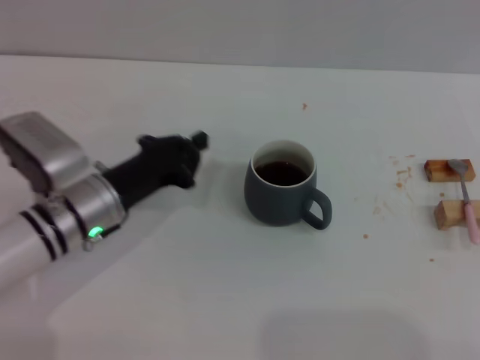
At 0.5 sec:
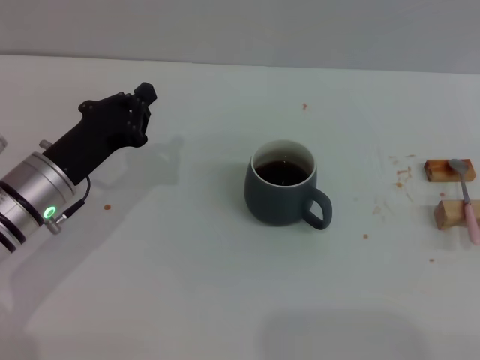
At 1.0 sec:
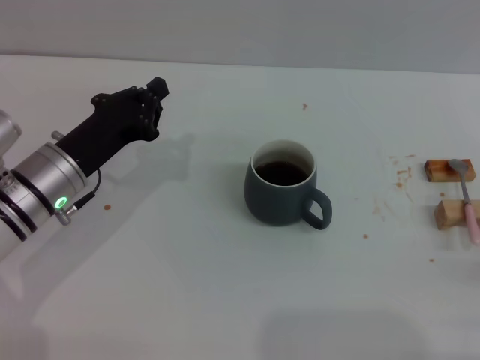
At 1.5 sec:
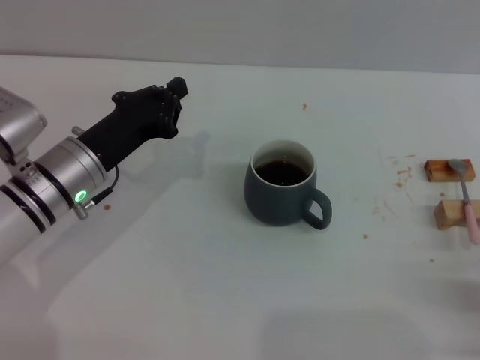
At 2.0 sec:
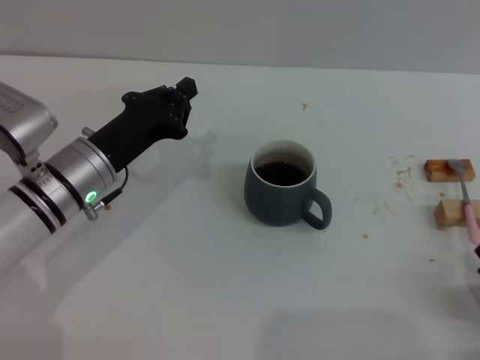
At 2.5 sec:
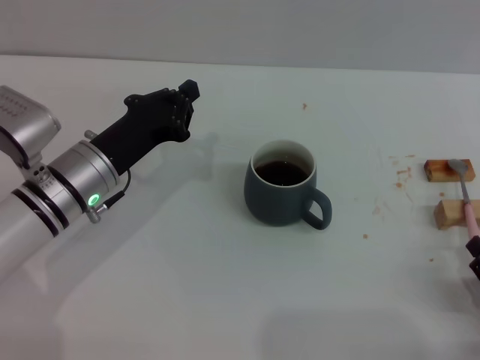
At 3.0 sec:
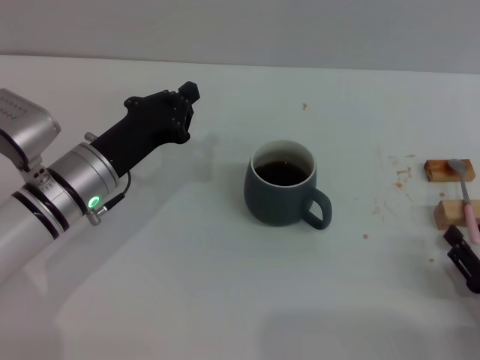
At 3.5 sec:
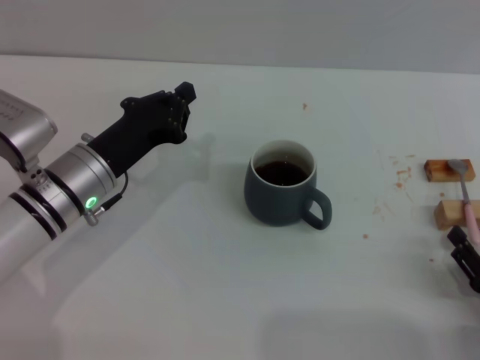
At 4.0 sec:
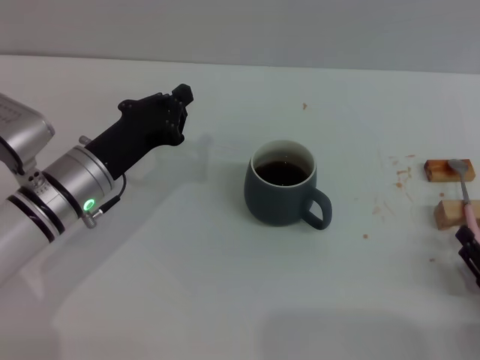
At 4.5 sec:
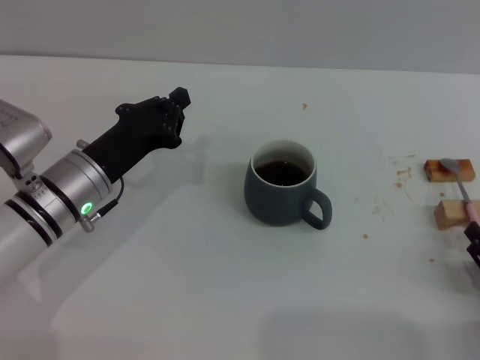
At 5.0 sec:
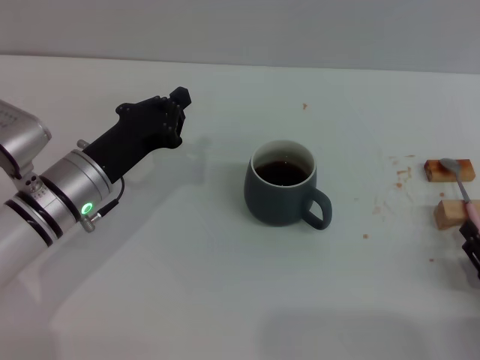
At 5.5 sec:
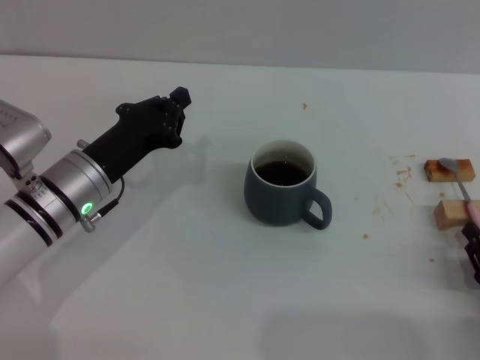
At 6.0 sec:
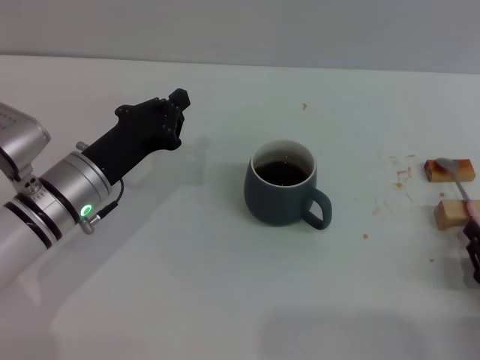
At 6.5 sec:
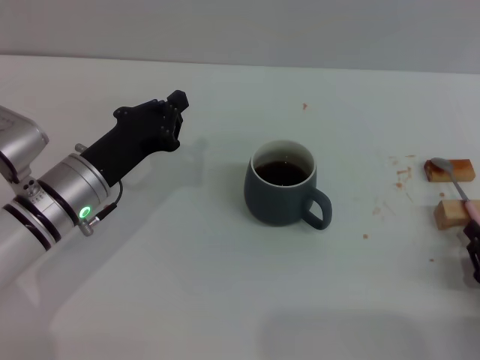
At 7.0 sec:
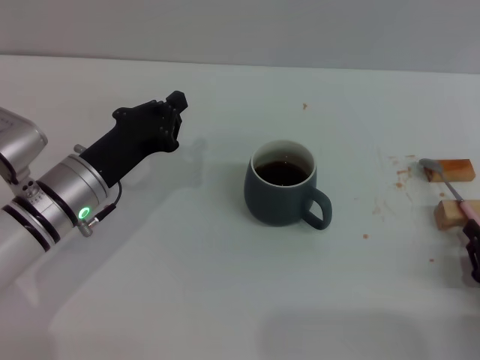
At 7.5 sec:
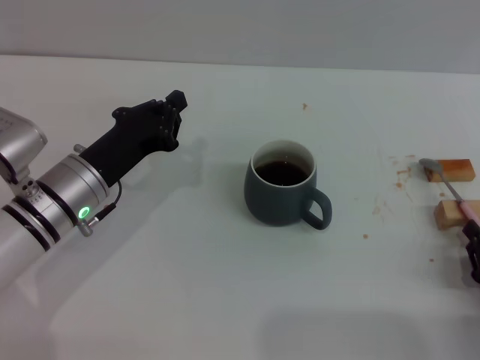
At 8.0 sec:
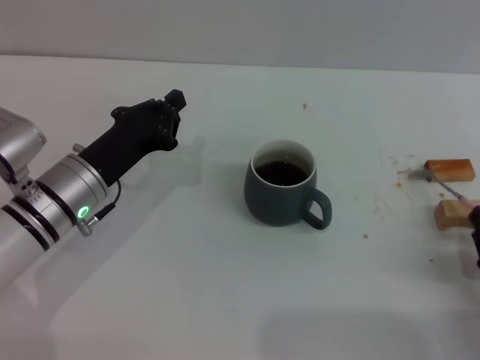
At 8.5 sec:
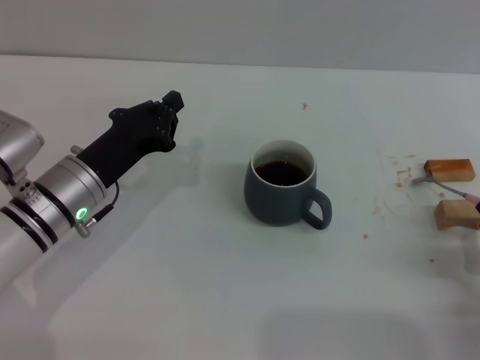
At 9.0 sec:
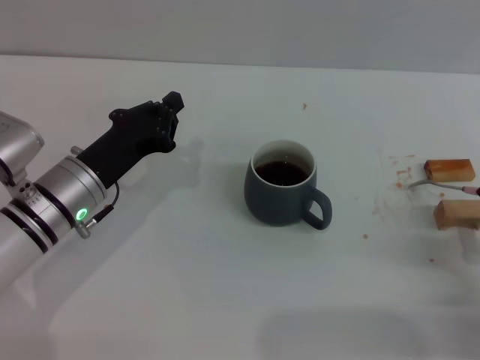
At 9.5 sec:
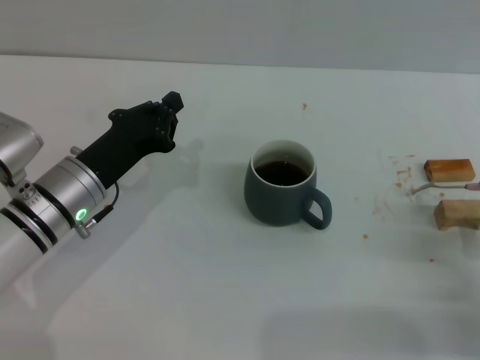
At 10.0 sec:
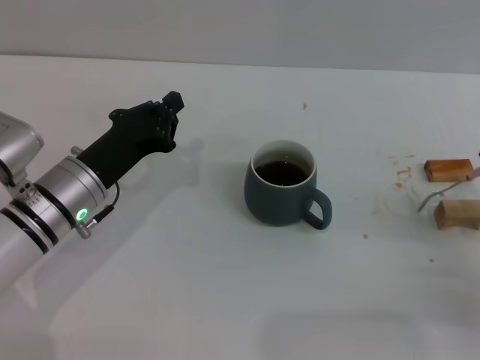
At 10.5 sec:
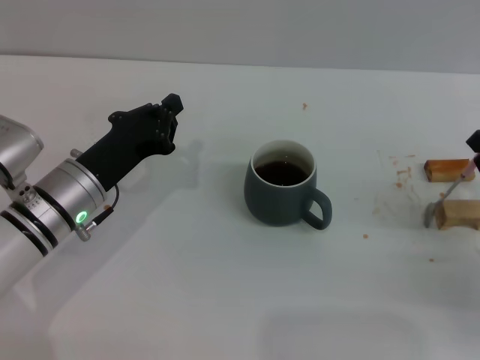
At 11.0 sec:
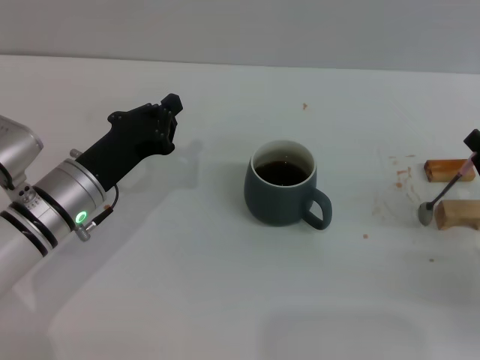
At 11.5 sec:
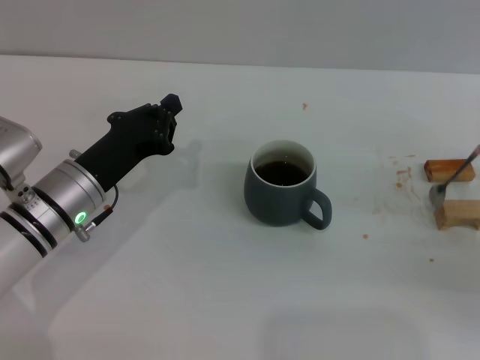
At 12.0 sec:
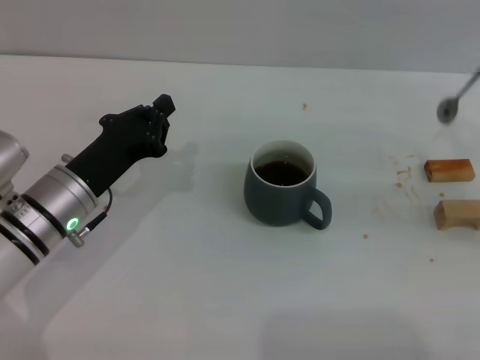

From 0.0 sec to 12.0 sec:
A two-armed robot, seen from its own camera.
Task of the whole recording: Move the grey cup to the center, lift the pink spoon, stir it three times in the cup, and put the spoon into the cup.
From 0.0 sec to 2.0 sec: The right gripper heads to the left and downward, covering about 15 cm.
From 2.0 sec to 4.0 sec: The grippers move only a little.
From 4.0 sec to 6.0 sec: The right gripper closes up.
From 6.0 sec to 8.0 sec: Both grippers stay about where they are.
From 8.0 sec to 10.0 sec: The right gripper ends up some 5 cm from where it was.
From 10.0 sec to 12.0 sec: The right gripper travels upward and forward by about 15 cm.

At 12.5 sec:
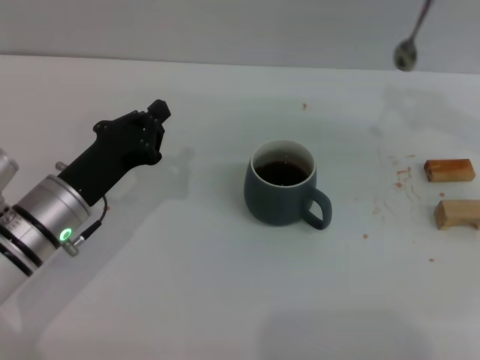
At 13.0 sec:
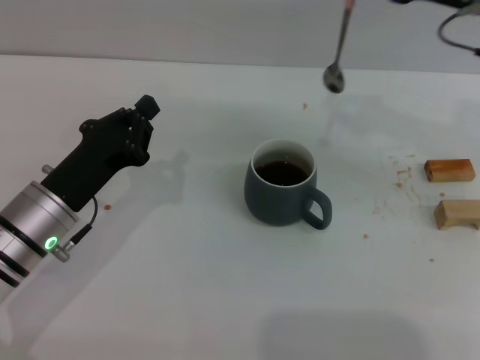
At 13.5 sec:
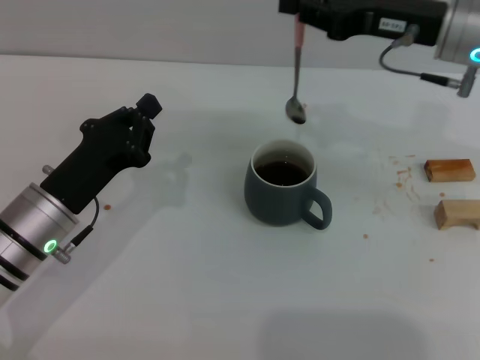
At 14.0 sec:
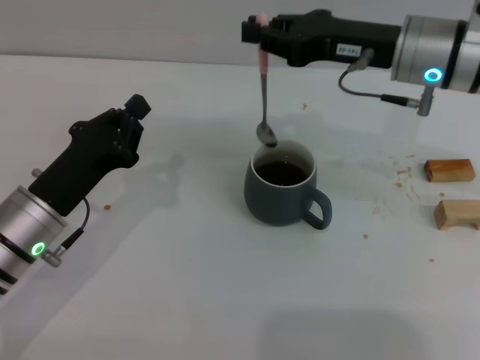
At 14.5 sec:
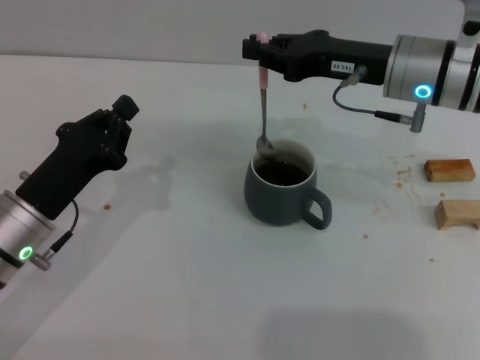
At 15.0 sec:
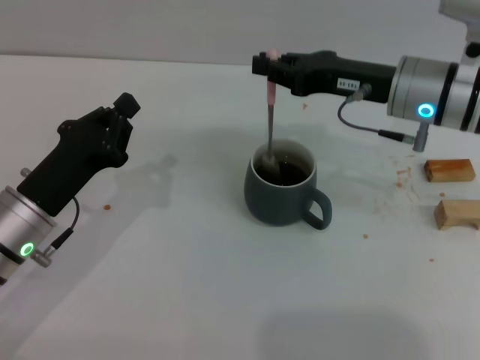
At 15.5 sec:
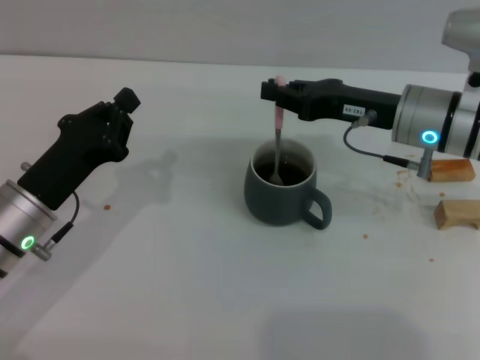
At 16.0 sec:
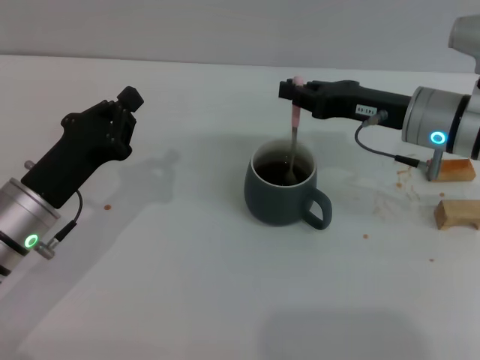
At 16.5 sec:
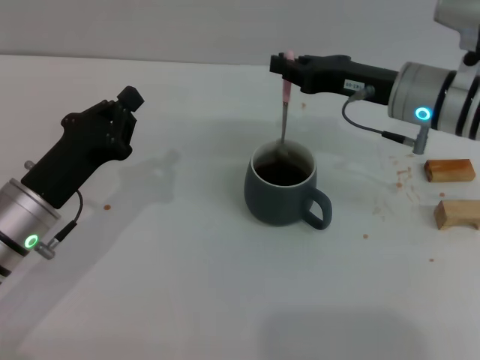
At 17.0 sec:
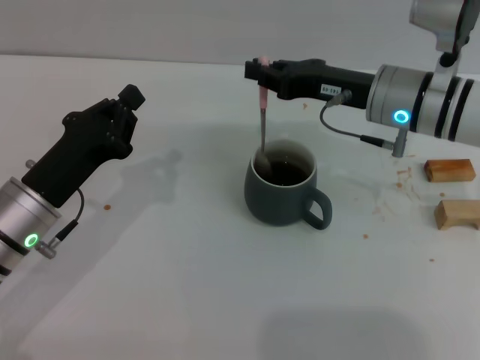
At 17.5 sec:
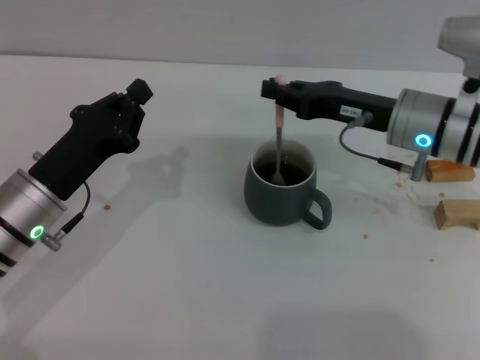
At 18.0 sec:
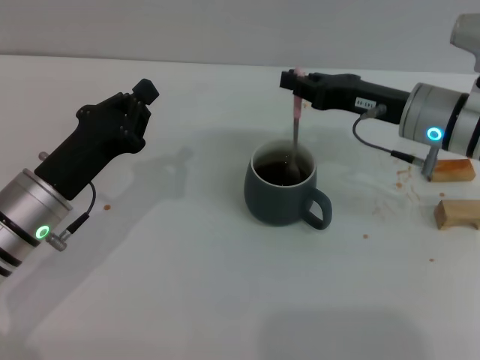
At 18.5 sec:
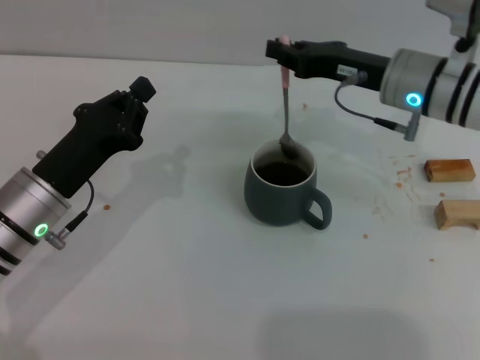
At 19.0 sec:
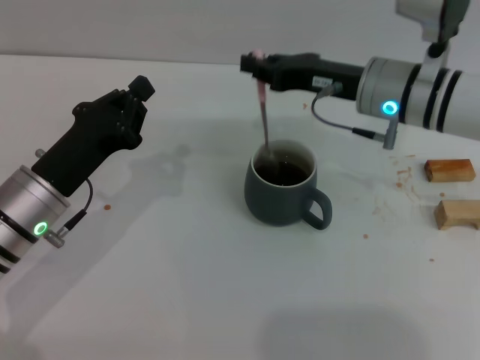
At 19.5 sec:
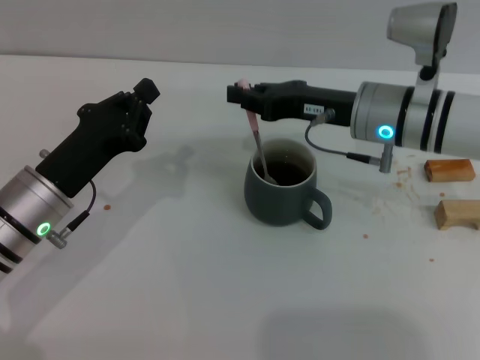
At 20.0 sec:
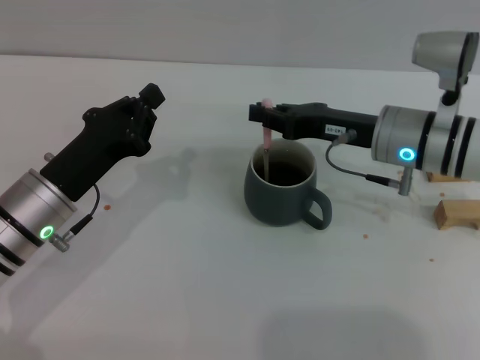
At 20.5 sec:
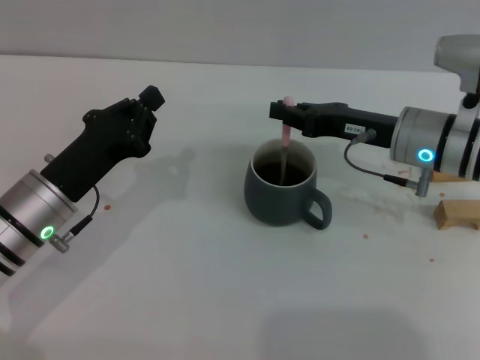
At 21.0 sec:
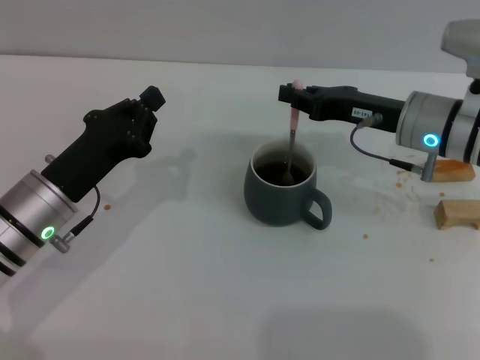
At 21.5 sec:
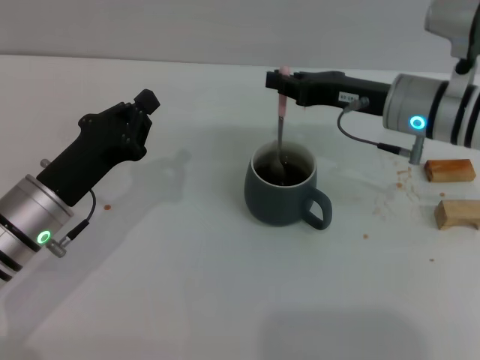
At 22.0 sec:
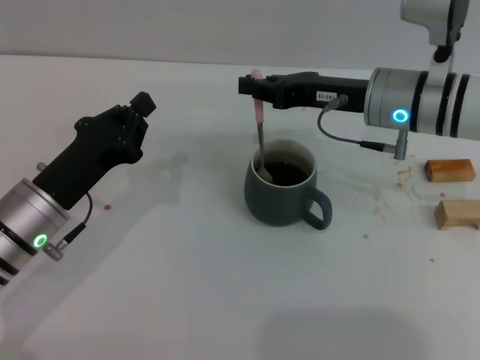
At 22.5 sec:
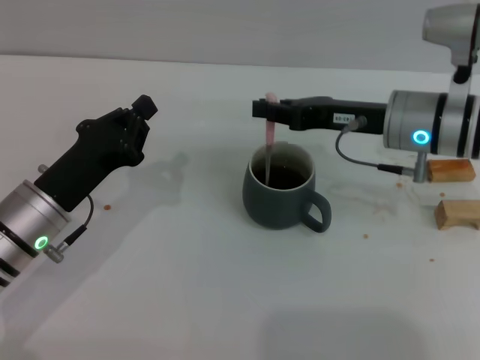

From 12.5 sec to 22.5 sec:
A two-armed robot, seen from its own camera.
Task of the whole recording: Move the grey cup to the center, lift the pink spoon, stir it three times in the cup, and put the spoon into the cup.
From 12.5 sec to 14.5 sec: The right gripper goes roughly 15 cm to the left and downward.
From 14.5 sec to 18.5 sec: The grippers stay close to where they were, moving slightly.
From 18.5 sec to 20.5 sec: The right gripper ends up about 5 cm from where it was.
From 20.5 sec to 22.5 sec: The left gripper opens its fingers.

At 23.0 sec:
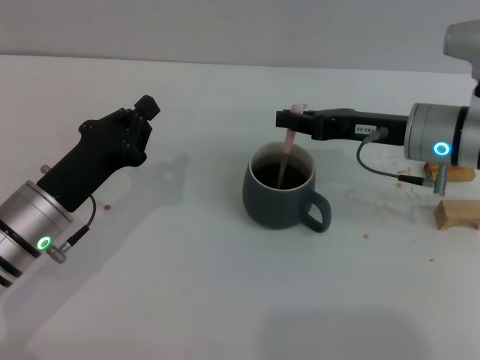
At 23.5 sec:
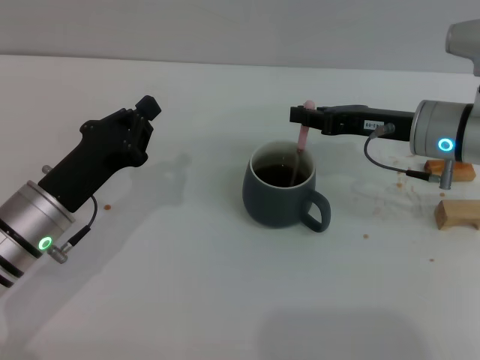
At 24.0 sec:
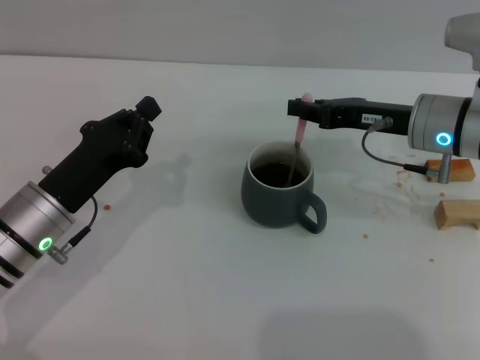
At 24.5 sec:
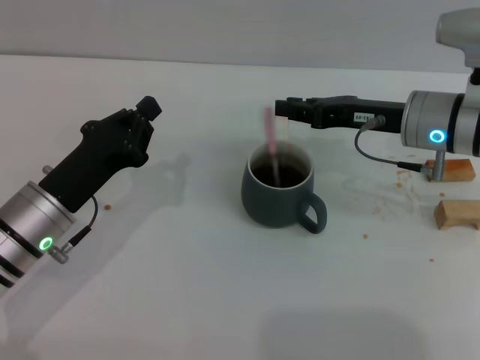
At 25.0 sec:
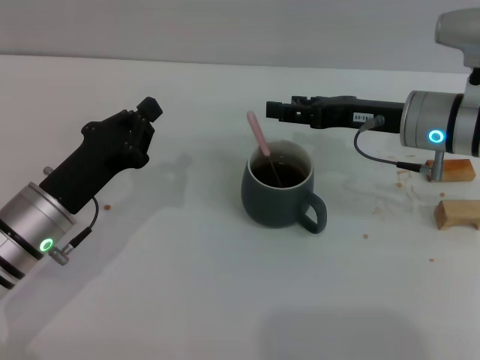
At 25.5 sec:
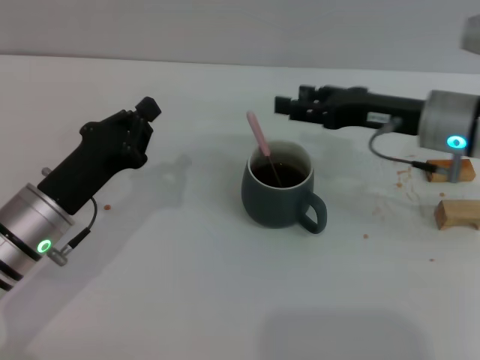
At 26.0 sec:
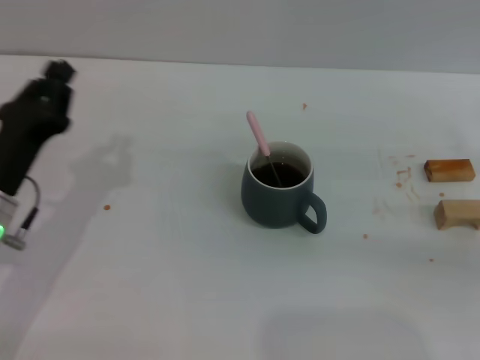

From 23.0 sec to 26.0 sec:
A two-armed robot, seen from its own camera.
Task of the whole recording: Move the grey cup to the center, lift the pink spoon, stir it three times in the cup, and put the spoon into the cup.
From 23.0 sec to 24.5 sec: The grippers stay close to where they were, moving slightly.
From 24.5 sec to 26.0 sec: The right gripper travels to the right and backward by roughly 20 cm, and opens up.
